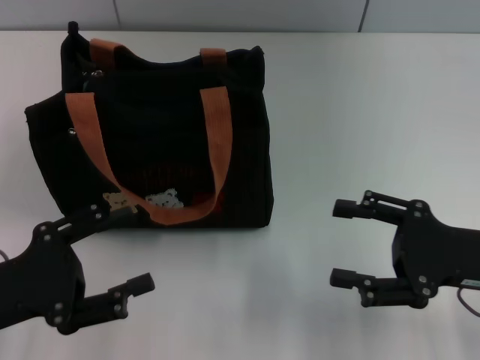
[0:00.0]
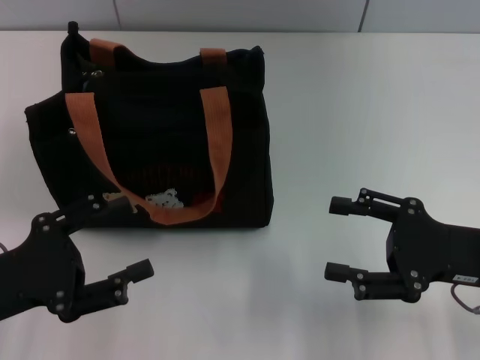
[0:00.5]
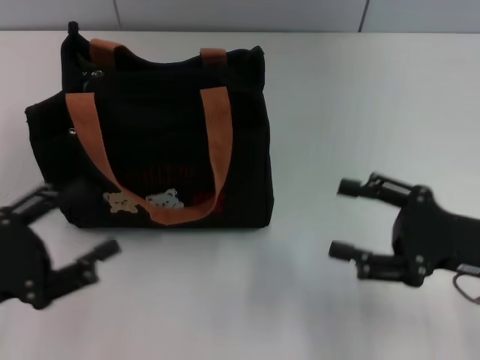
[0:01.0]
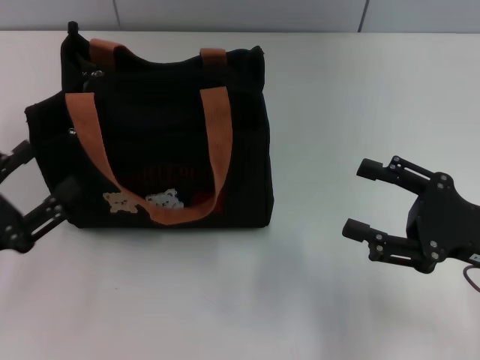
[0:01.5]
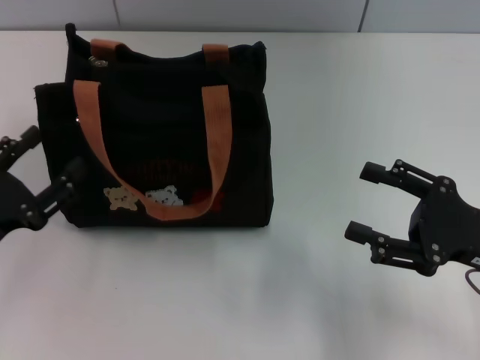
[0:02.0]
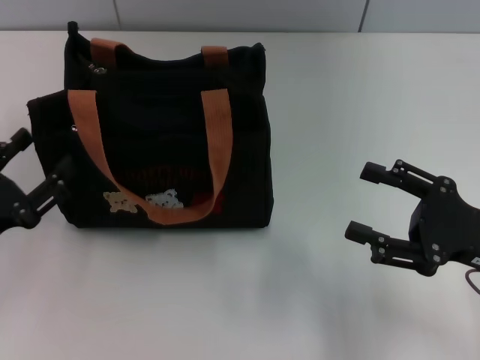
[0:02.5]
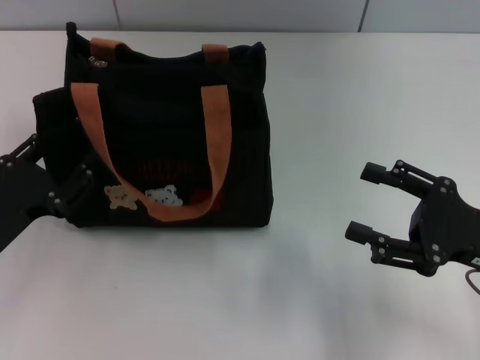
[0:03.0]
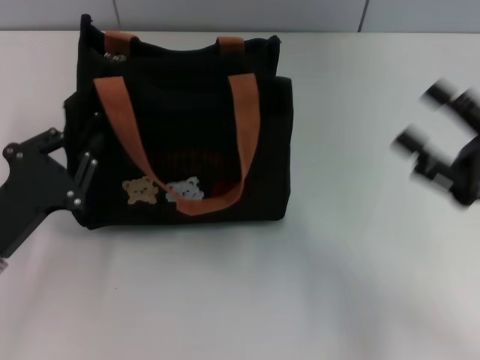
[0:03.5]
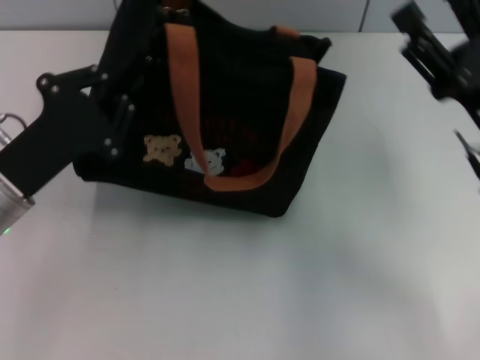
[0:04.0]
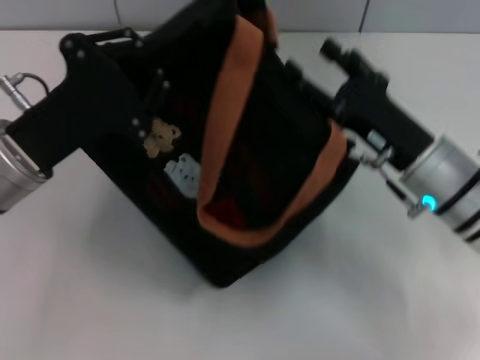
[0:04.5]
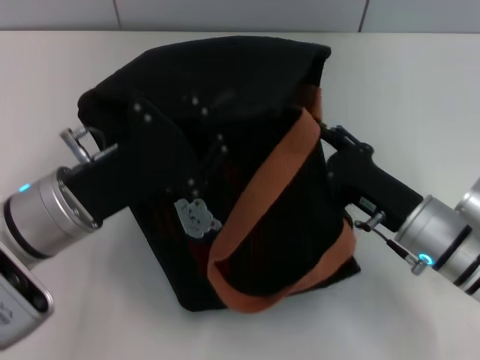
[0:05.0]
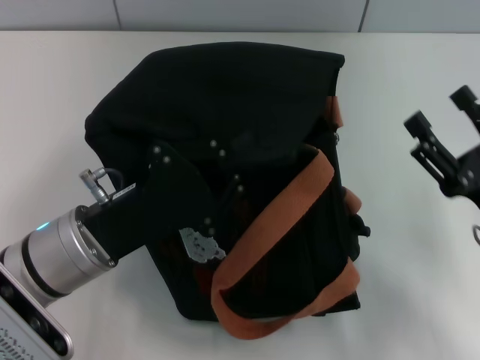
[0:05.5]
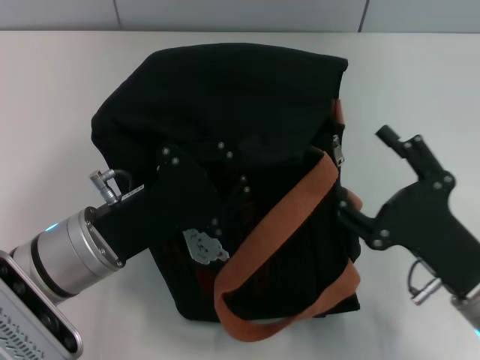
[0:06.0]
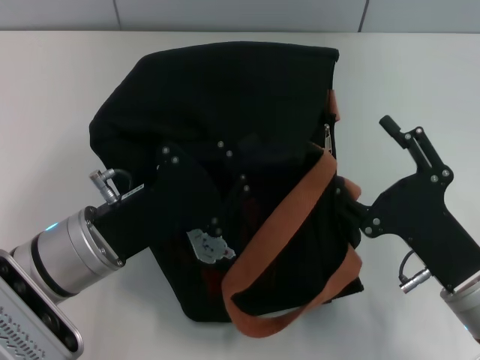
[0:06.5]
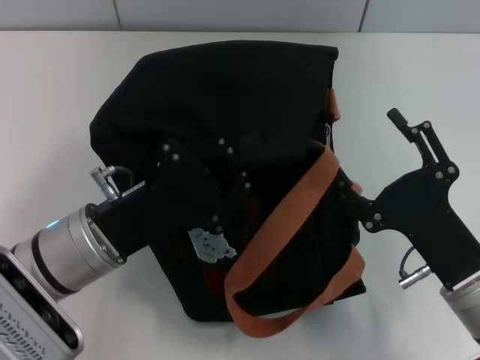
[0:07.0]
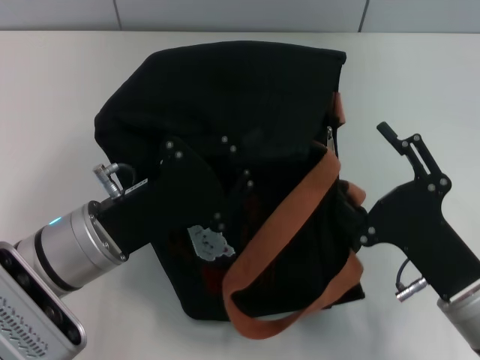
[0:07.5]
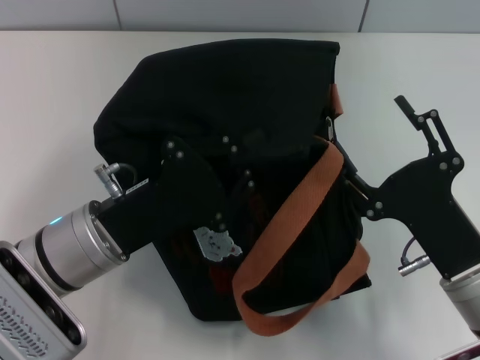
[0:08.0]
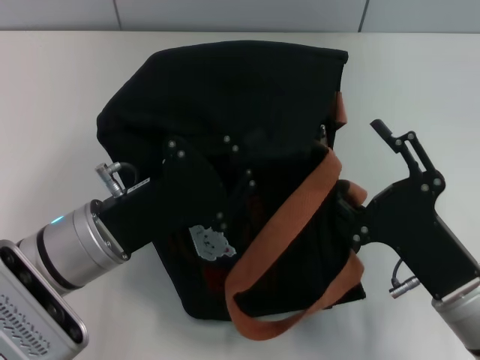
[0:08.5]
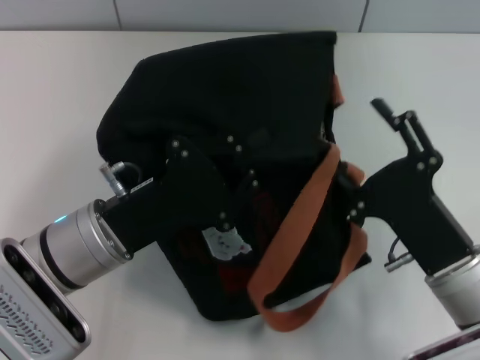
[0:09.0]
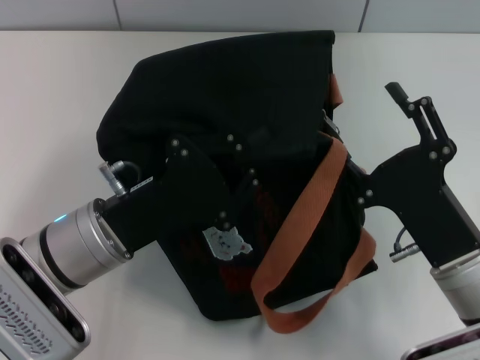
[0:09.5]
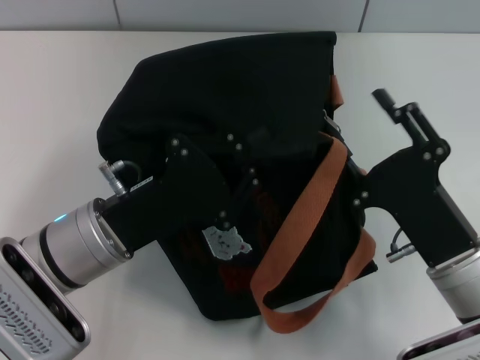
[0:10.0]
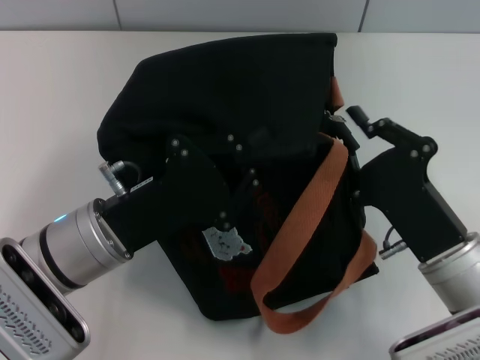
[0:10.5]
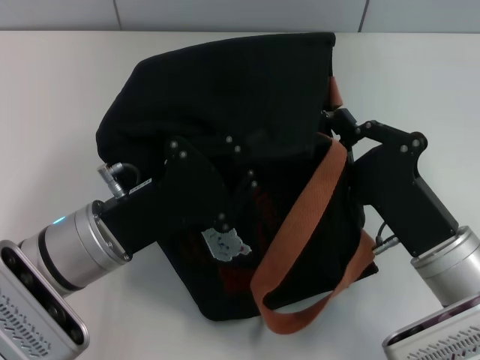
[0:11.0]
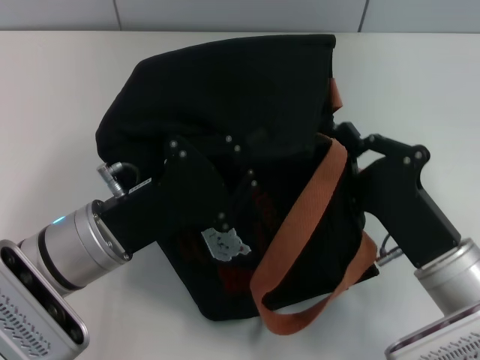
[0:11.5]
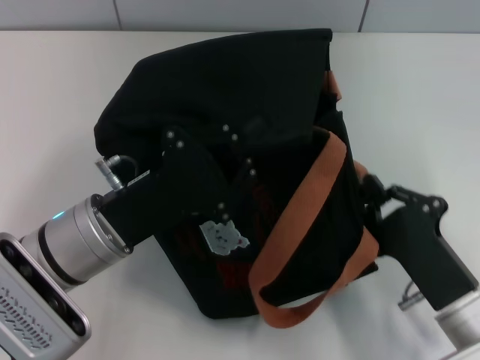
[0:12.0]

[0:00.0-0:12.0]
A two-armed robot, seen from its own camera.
0:02.0 to 0:04.0: The right gripper moves approximately 5 cm. The left gripper heads forward and to the right, covering roughly 10 cm, and closes its fingers.
0:04.0 to 0:06.0: The left gripper is displaced to the right by roughly 10 cm; the right gripper goes about 10 cm backward and downward.
0:08.0 to 0:10.0: The grippers stay close to where they were, moving slightly.
0:10.0 to 0:12.0: The right gripper closes up.

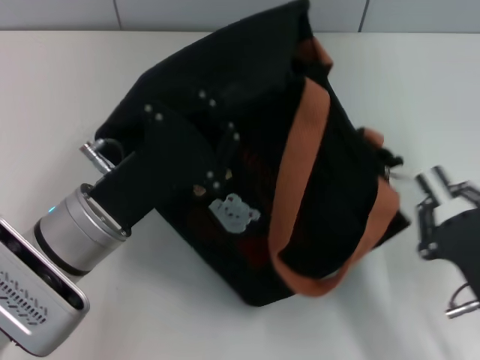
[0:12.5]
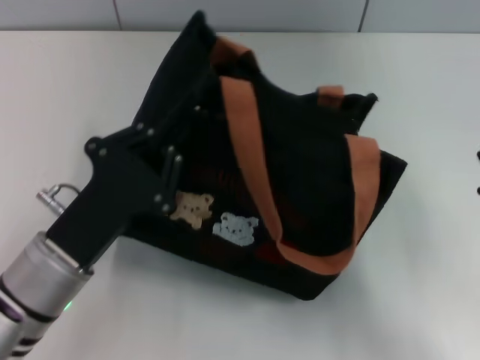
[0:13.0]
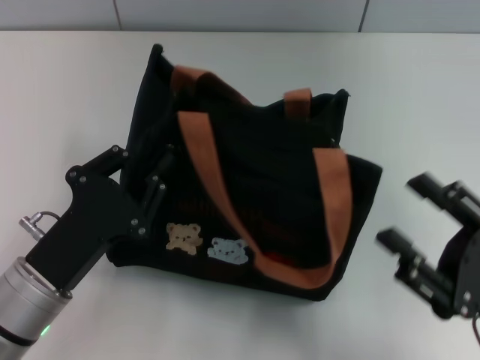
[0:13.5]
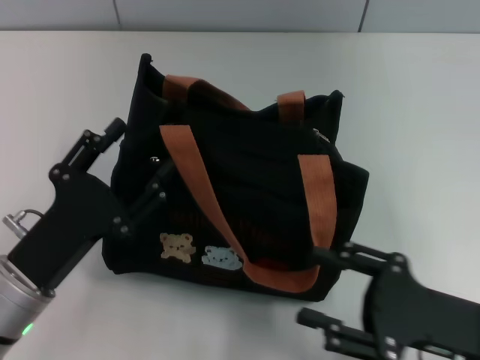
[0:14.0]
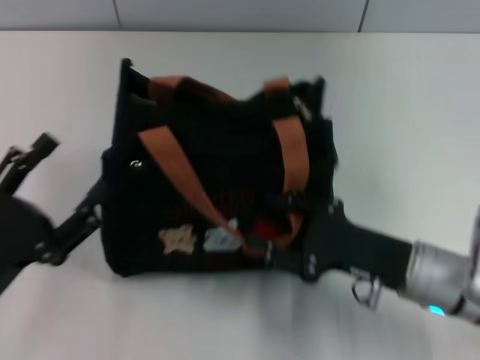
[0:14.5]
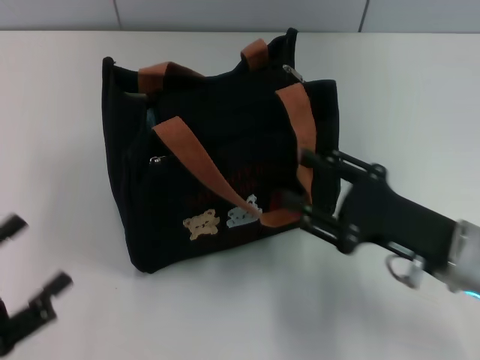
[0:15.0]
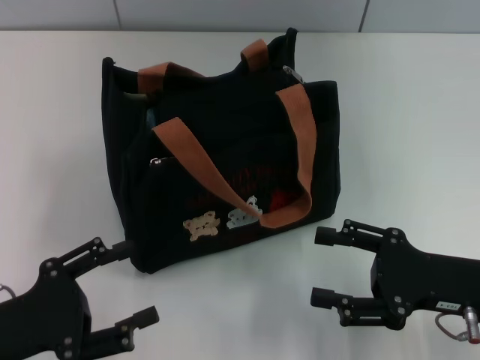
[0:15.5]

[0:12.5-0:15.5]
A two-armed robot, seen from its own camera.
Step, 0:13.0 to 0:14.0: Grab the bag with your left hand.
0:12.5 to 0:14.0: The left gripper heads to the left and backward, covering approximately 10 cm, and opens. The right gripper opens its fingers.
0:14.0 to 0:15.5: The right gripper moves roughly 5 cm; the left gripper goes roughly 5 cm to the left, and opens its fingers.

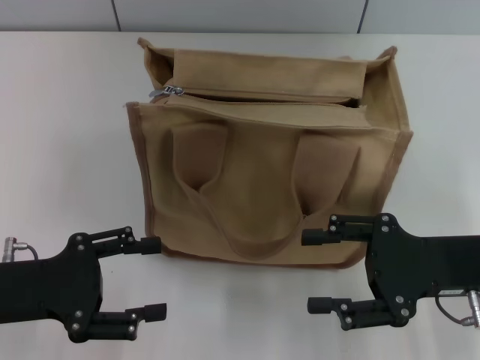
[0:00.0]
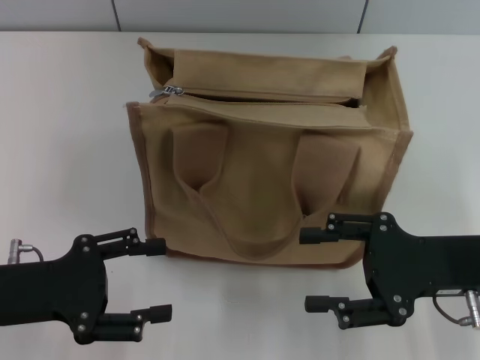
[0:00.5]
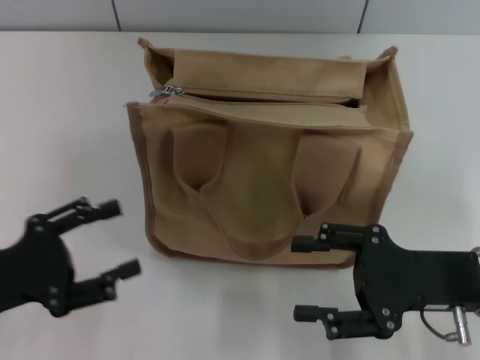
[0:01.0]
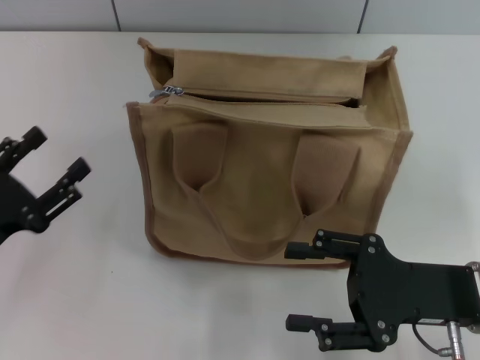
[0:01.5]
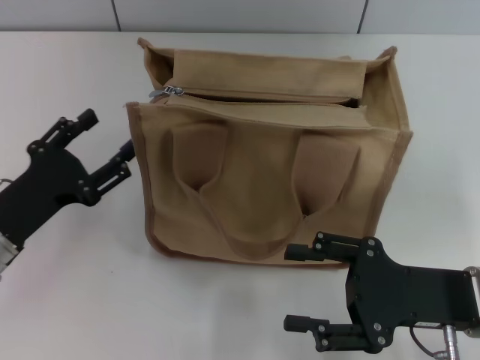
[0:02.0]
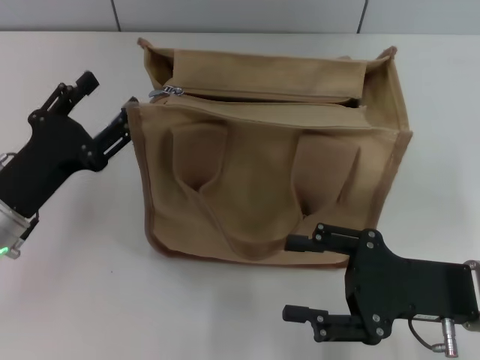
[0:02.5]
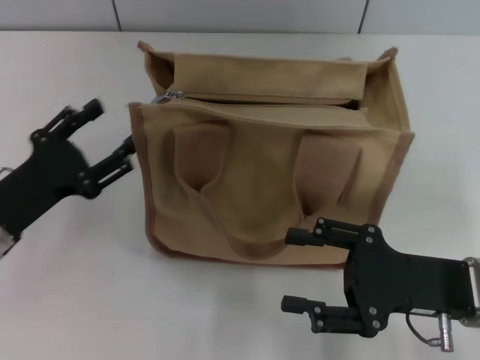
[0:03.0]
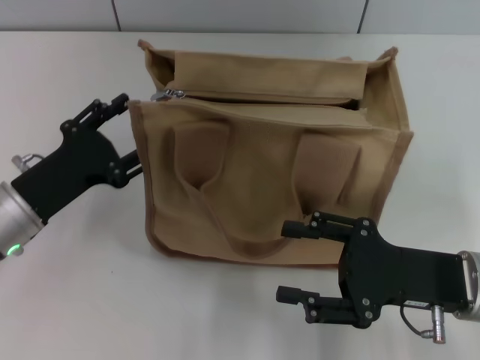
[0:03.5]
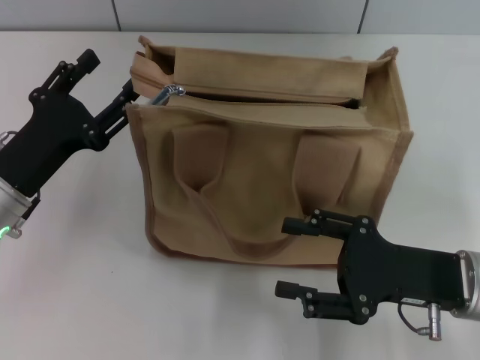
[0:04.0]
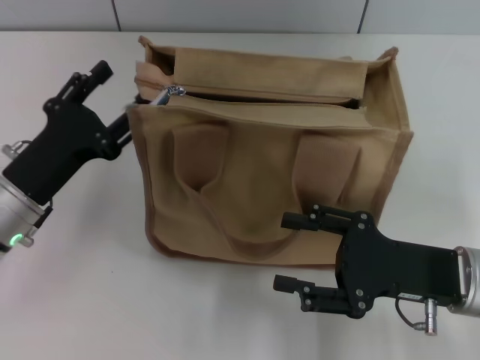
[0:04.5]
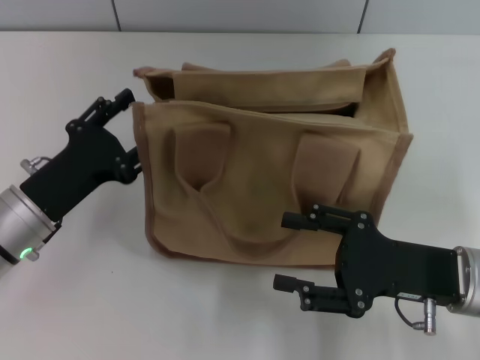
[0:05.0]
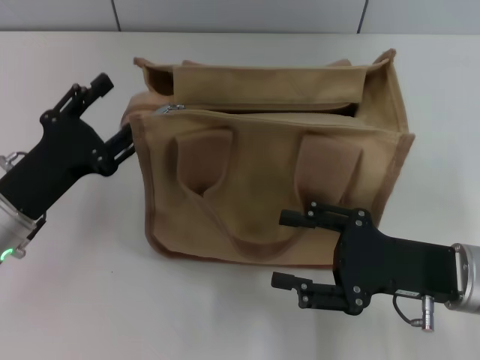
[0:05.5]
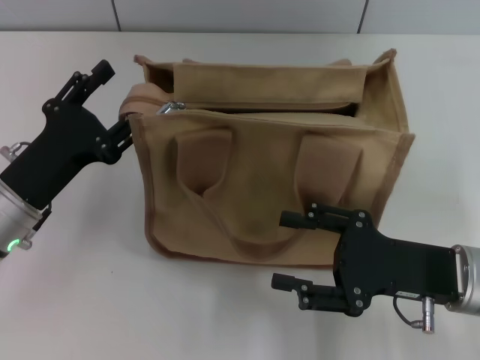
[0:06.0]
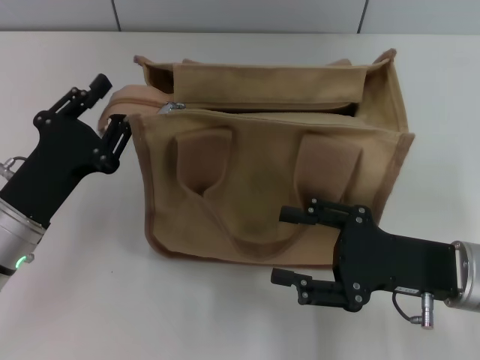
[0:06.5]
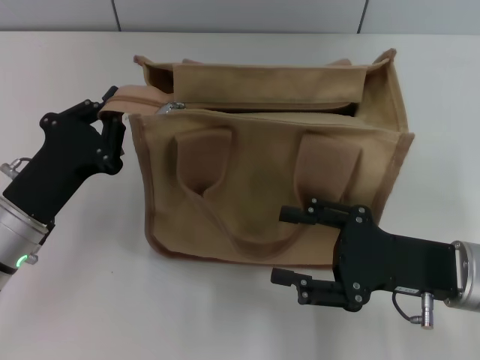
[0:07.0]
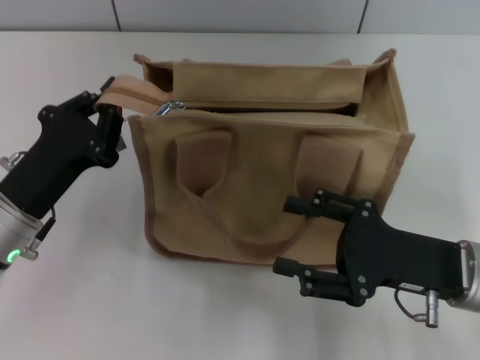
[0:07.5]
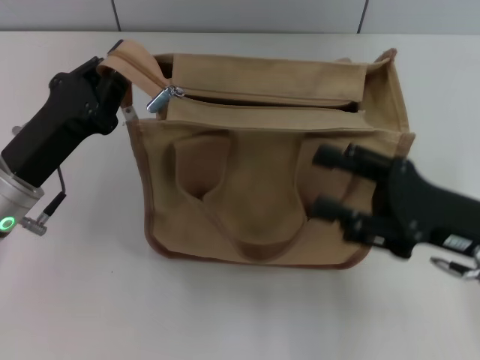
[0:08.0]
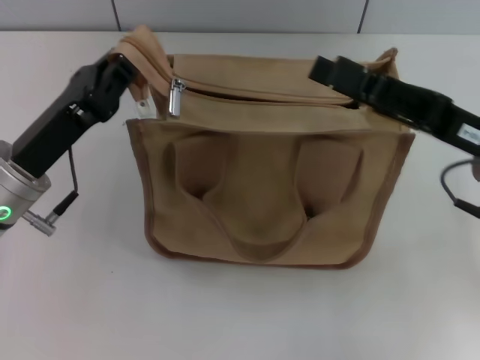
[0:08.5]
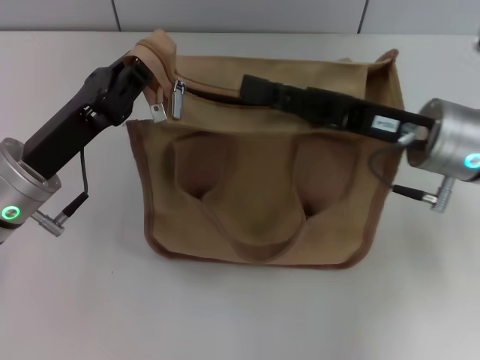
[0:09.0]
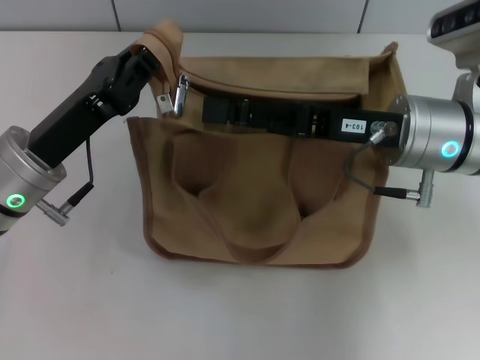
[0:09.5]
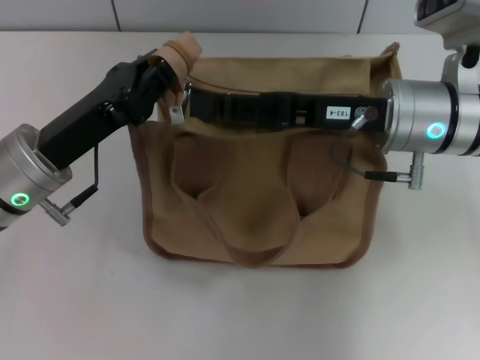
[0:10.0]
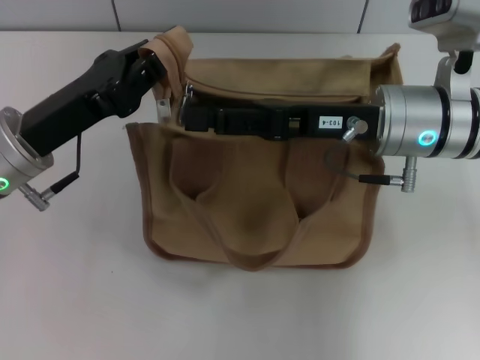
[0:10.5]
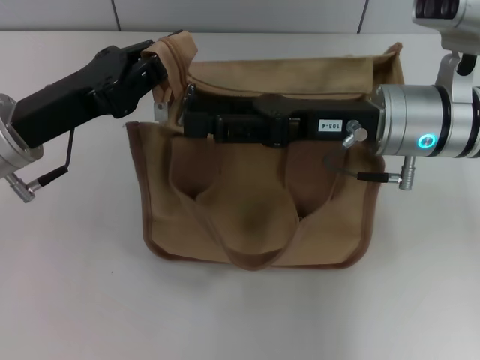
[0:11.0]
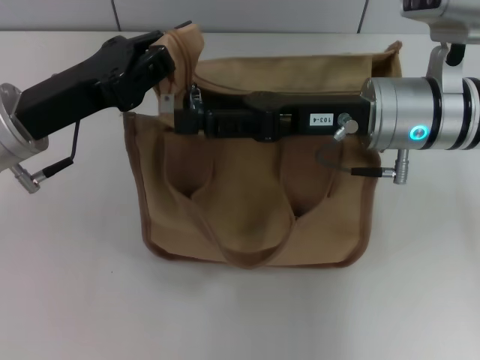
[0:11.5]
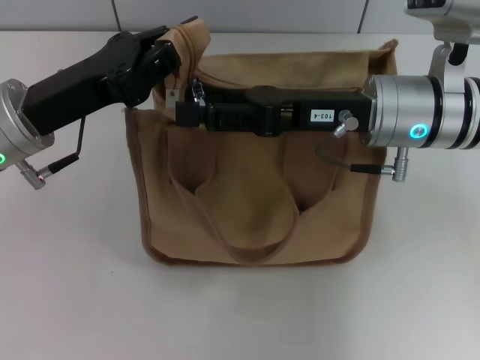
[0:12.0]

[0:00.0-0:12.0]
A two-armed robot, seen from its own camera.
0:02.0 to 0:06.0: The grippers make only small movements.
0:06.0 to 0:08.0: The left gripper closes up.
0:08.0 to 0:10.0: The right gripper travels forward, to the left and upward by some 15 cm.
